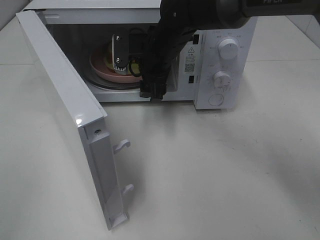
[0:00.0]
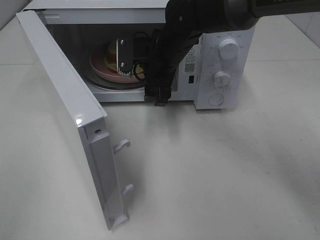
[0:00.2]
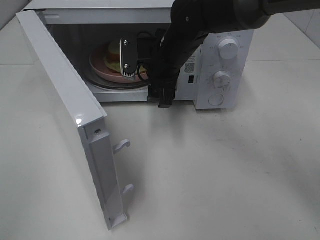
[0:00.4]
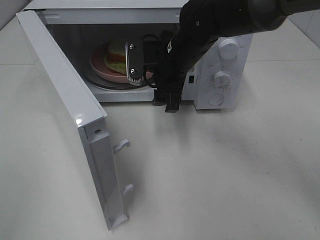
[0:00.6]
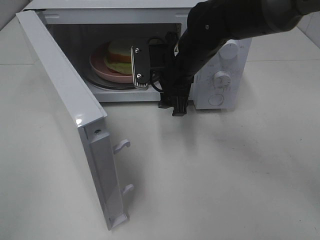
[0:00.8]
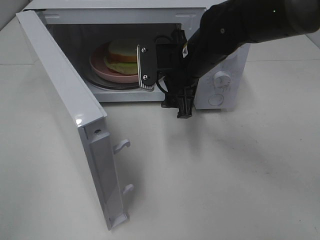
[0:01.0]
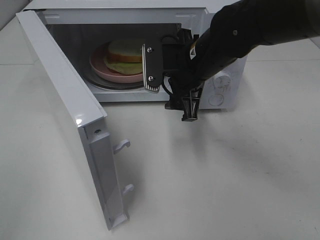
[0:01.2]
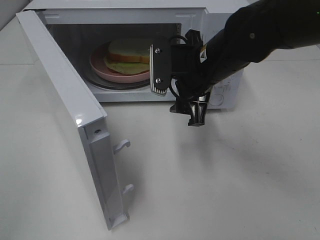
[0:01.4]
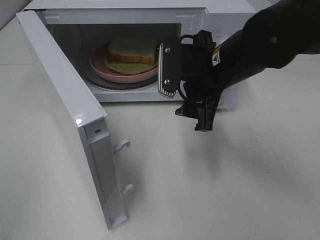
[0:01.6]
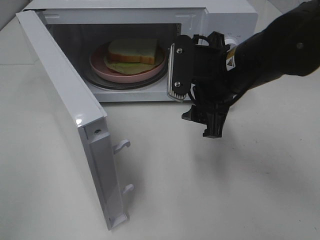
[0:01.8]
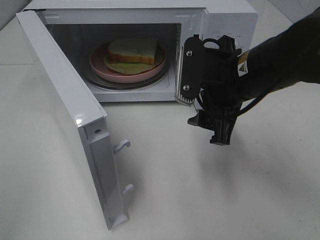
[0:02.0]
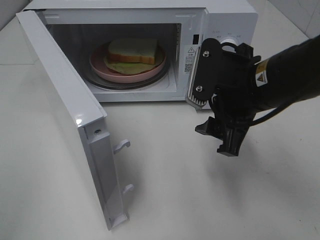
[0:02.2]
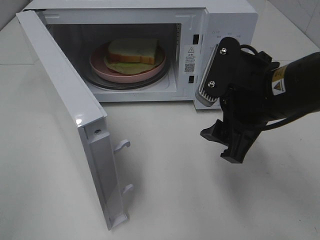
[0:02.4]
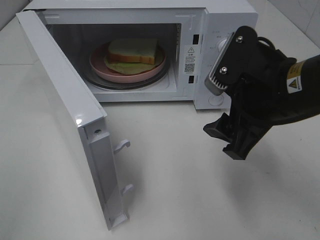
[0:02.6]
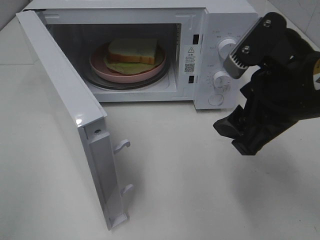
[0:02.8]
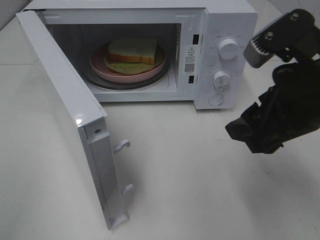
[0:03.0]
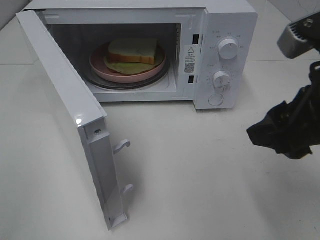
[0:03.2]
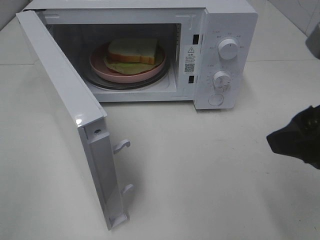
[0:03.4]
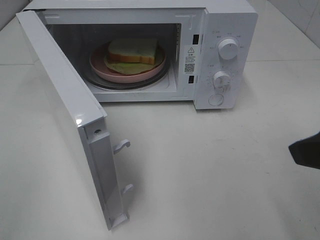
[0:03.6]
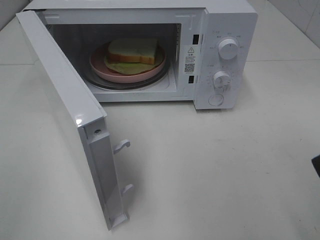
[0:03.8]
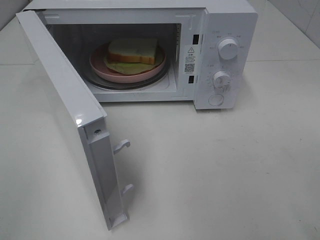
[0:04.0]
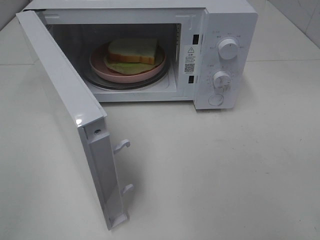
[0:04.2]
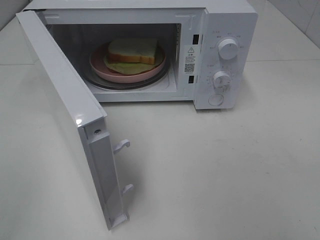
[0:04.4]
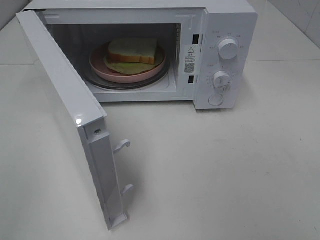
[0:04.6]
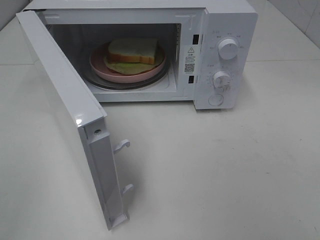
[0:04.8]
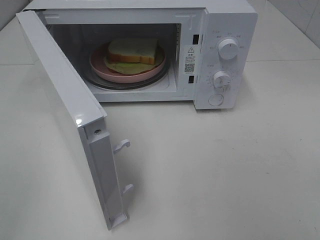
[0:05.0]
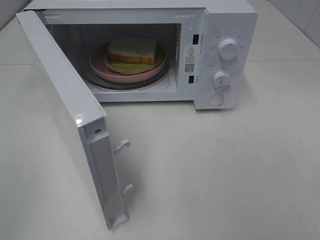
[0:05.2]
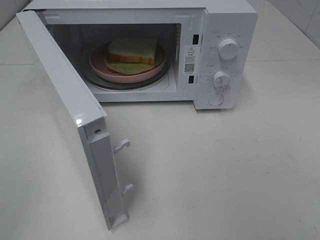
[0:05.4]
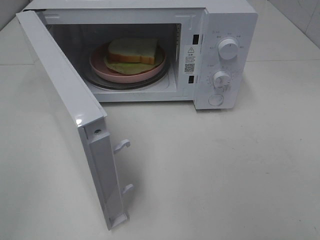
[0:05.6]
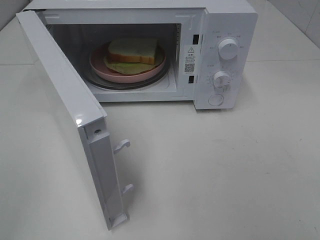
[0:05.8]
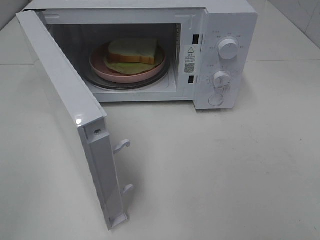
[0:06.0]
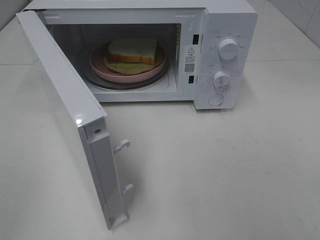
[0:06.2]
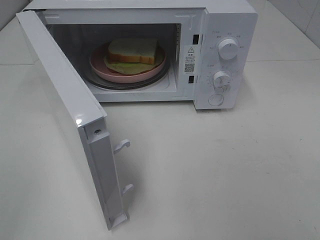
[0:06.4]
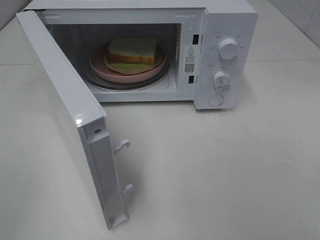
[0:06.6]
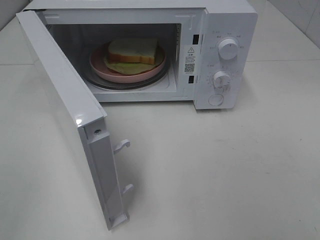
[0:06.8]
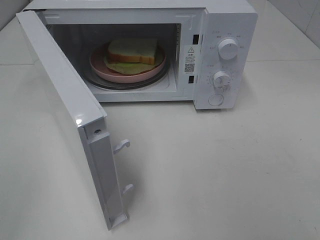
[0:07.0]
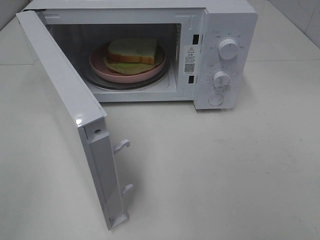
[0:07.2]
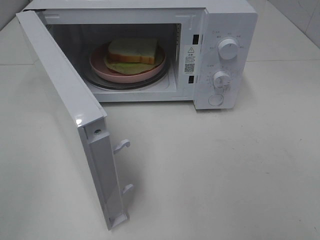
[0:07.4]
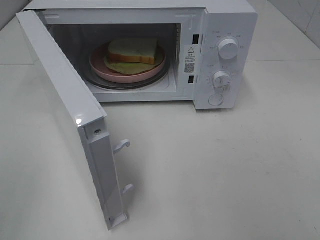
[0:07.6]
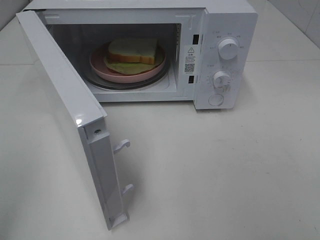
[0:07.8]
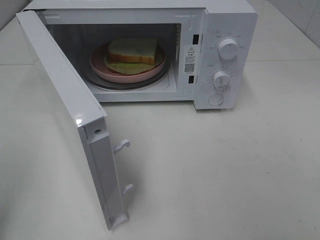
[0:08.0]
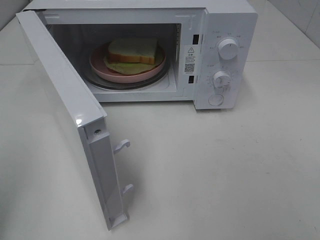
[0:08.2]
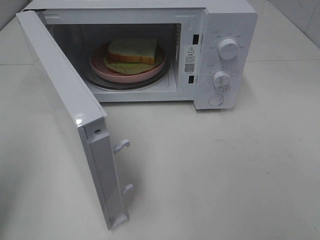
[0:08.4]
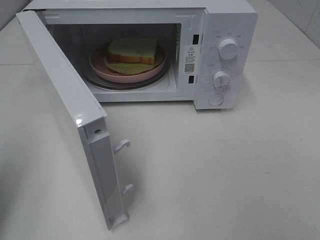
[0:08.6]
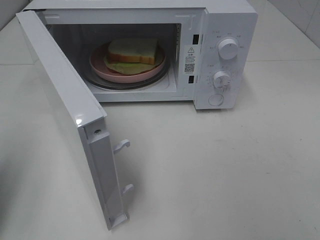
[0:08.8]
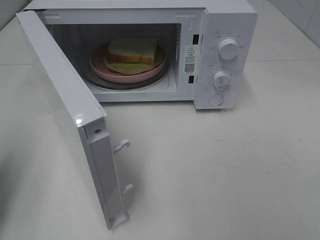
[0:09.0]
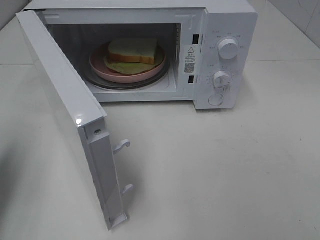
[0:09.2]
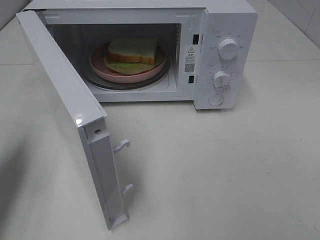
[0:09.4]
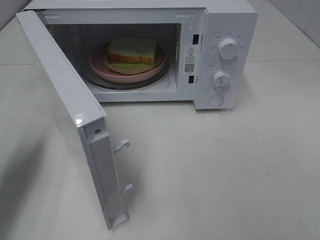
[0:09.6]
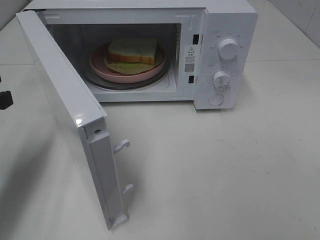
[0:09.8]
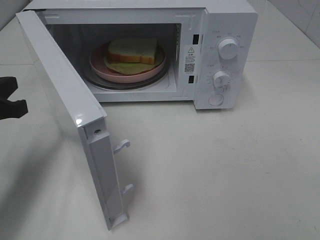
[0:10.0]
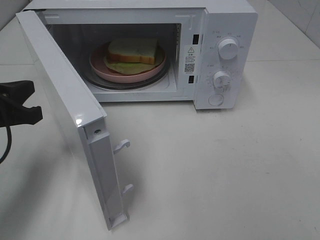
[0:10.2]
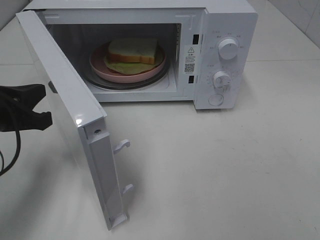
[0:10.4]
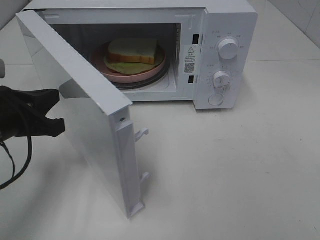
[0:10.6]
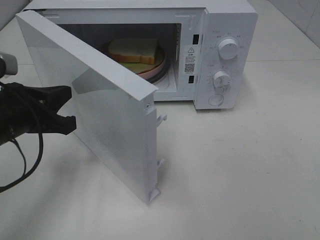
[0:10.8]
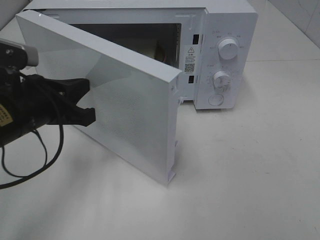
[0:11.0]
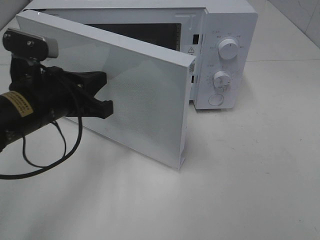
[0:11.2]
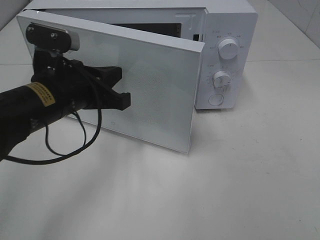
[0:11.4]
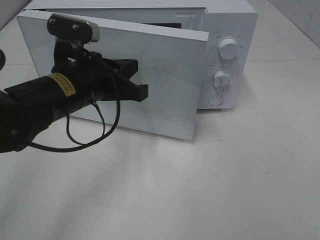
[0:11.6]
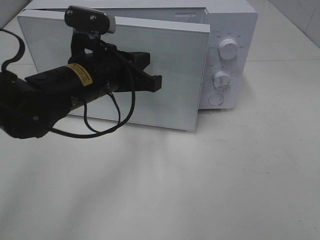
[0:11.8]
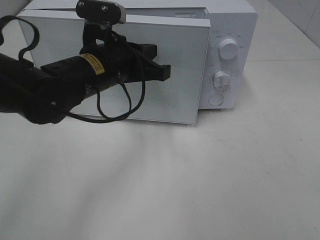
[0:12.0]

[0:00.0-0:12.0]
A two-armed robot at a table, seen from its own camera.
Task of the whole recording: Heat Sandwich.
0:00.0 to 0:01.6: The right gripper heads backward and to the right, covering some 15 cm.
0:01.6 to 0:03.0: The right gripper travels backward and to the right by some 15 cm.
0:03.0 to 0:04.4: The right gripper moves backward and to the right, about 15 cm.
0:07.6 to 0:09.0: The left gripper shifts about 15 cm forward, and closes.
0:09.0 to 0:10.4: The left gripper travels to the right, downward and forward by about 15 cm.
0:10.4 to 0:12.0: The left gripper shifts about 20 cm to the right and forward.

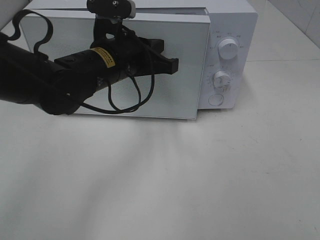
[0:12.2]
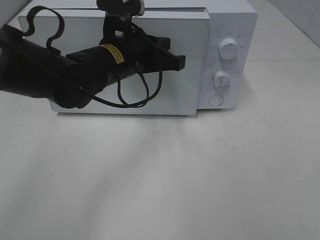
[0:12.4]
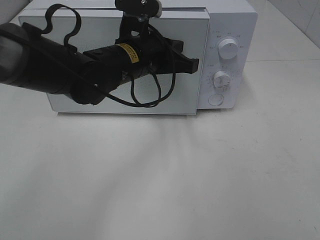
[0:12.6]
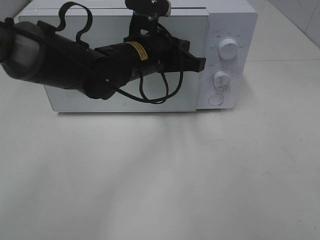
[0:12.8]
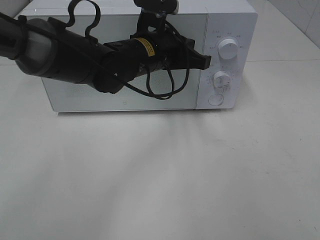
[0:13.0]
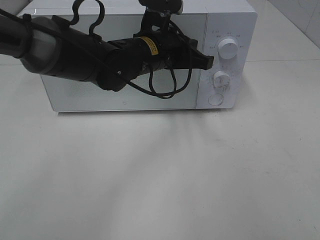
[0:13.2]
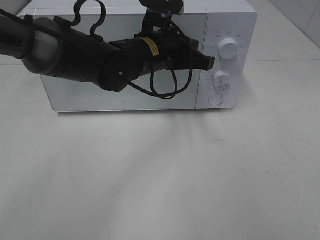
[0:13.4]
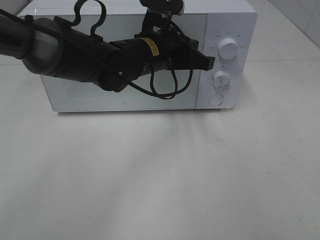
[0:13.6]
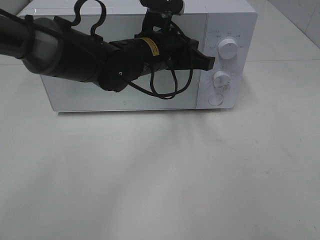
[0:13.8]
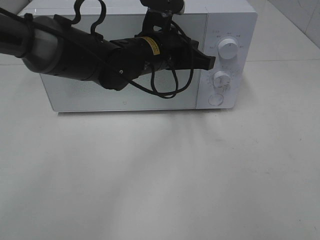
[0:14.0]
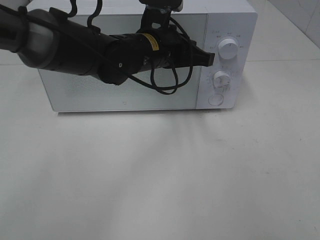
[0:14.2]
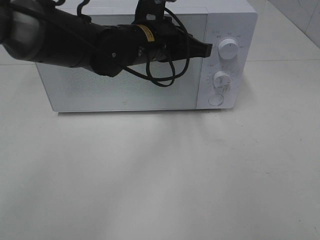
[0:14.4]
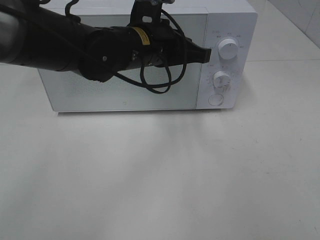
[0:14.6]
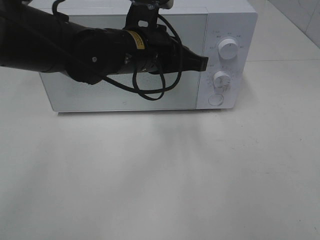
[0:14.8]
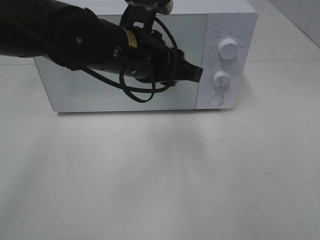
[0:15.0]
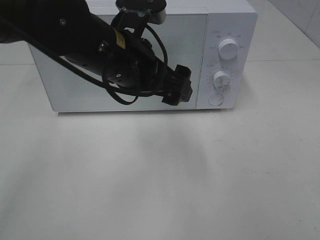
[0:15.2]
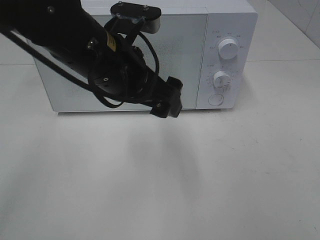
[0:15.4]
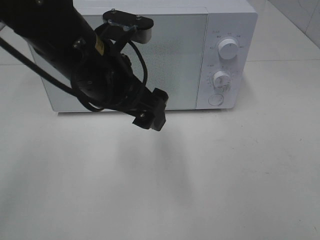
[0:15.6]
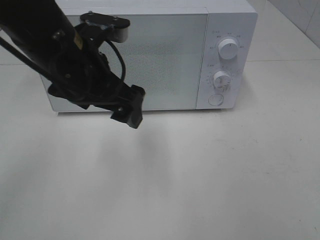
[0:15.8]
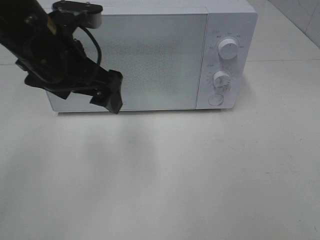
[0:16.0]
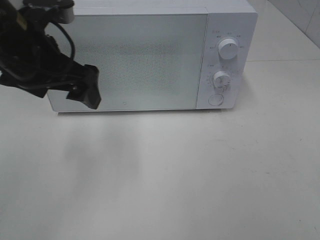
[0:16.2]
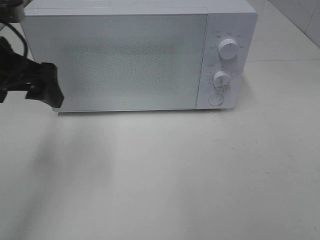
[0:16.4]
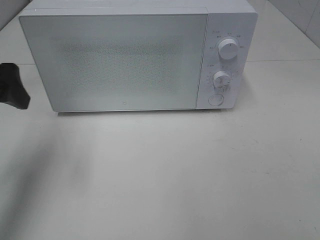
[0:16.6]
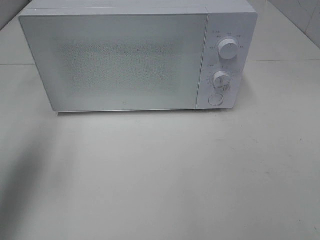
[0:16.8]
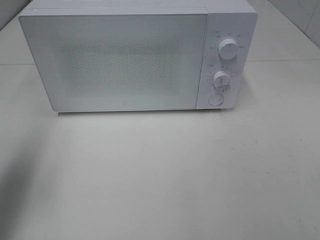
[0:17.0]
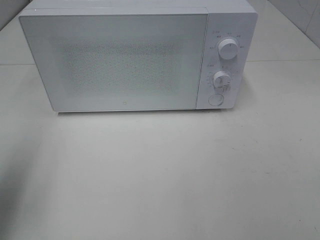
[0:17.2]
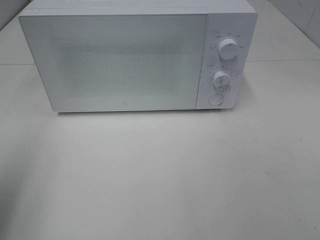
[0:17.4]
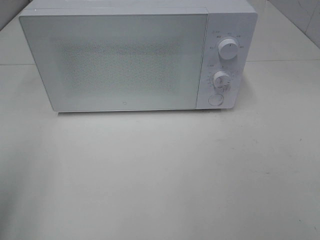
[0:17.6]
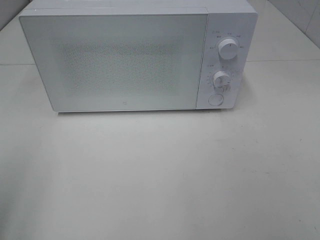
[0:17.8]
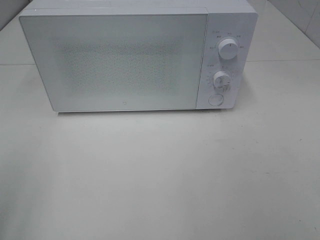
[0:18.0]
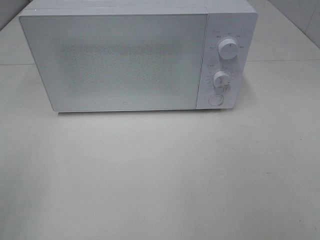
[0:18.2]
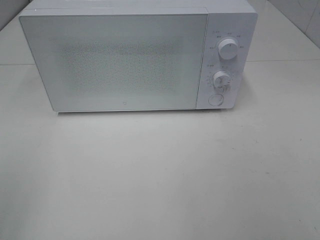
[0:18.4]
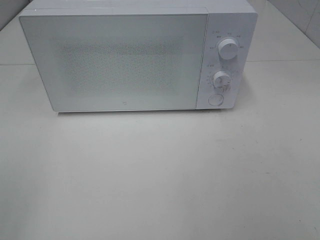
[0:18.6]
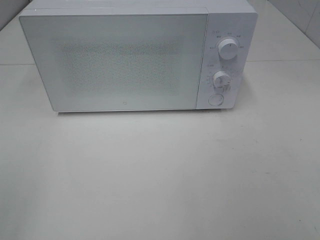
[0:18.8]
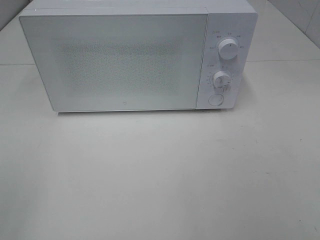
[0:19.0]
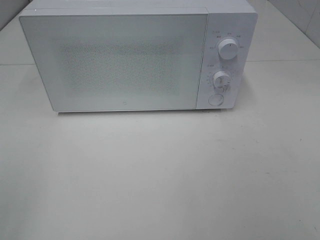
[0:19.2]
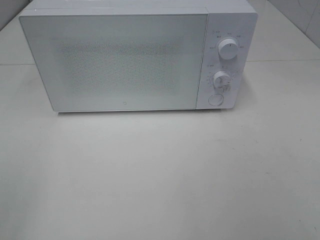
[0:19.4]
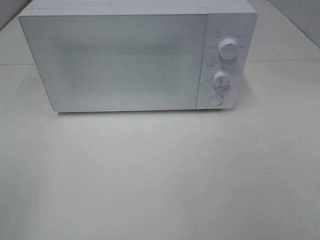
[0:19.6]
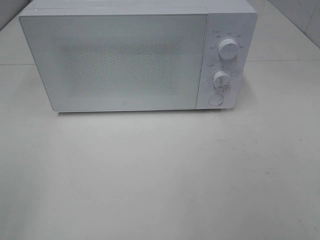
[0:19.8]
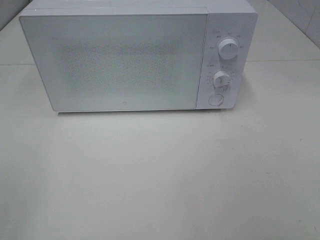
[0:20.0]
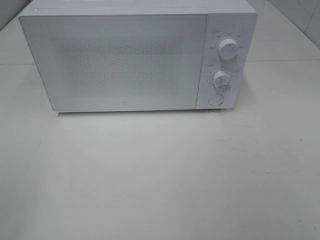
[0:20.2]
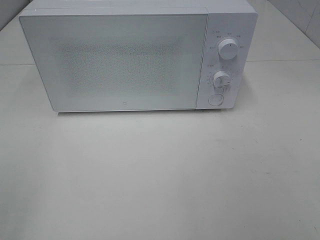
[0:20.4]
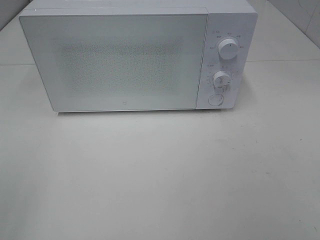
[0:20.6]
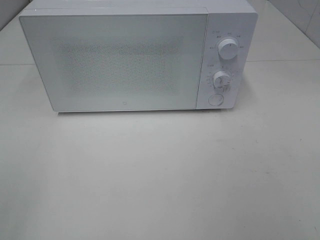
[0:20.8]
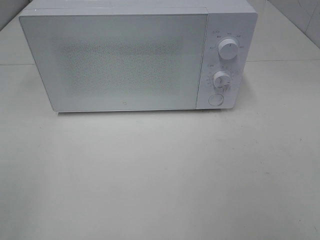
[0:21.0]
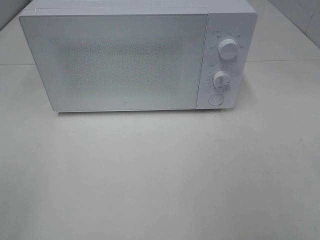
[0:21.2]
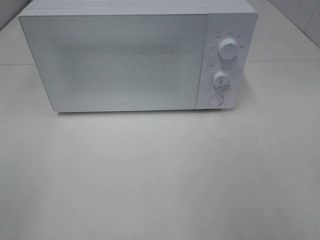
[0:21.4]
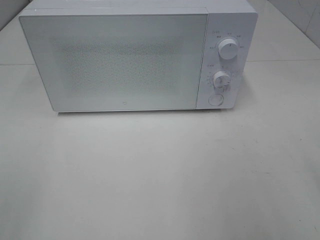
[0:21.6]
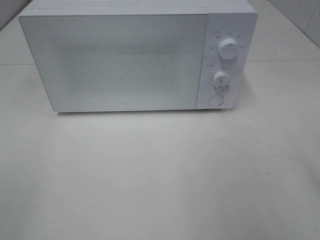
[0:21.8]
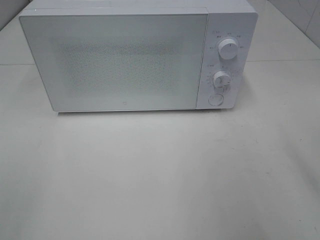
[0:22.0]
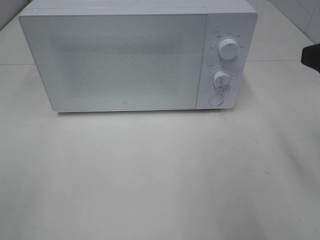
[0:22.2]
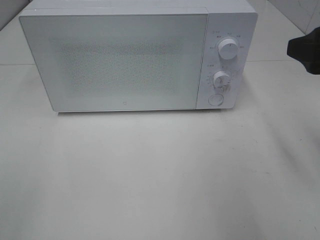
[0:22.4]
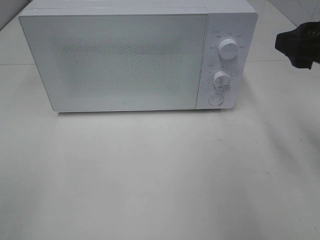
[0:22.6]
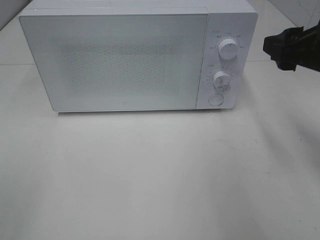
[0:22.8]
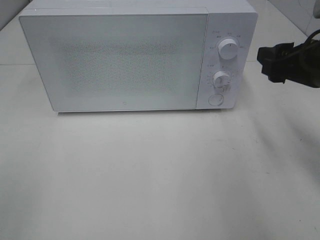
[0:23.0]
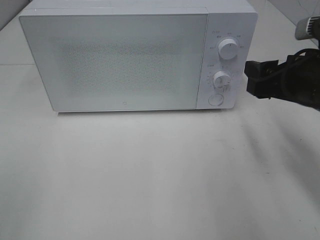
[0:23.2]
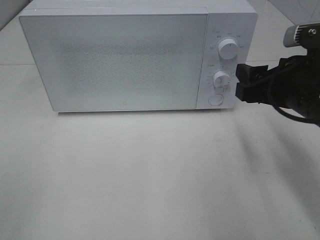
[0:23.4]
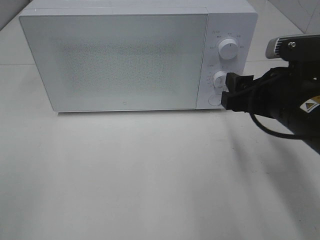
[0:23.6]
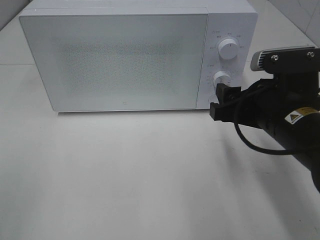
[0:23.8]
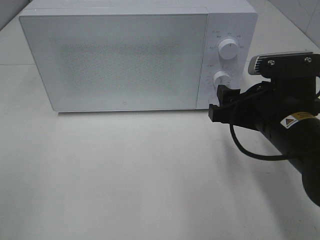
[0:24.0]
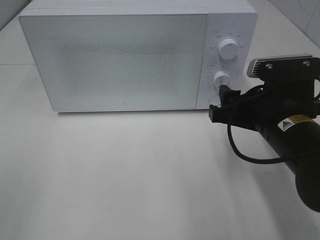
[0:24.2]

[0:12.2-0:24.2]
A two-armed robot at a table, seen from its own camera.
Task of the whole recording: Heat Sandwich.
0:12.2 to 0:13.8: The left gripper is displaced to the right by roughly 5 cm.
0:13.8 to 0:15.2: The left gripper travels backward and upward by roughly 10 cm, and opens its fingers.
0:15.2 to 0:16.6: The left gripper is displaced to the left by about 20 cm.
0:16.6 to 0:18.2: The left gripper travels backward by approximately 20 cm.
0:21.2 to 0:22.6: The right gripper is displaced forward by about 15 cm.
0:22.6 to 0:24.2: The right gripper shifts about 15 cm downward and to the left.
